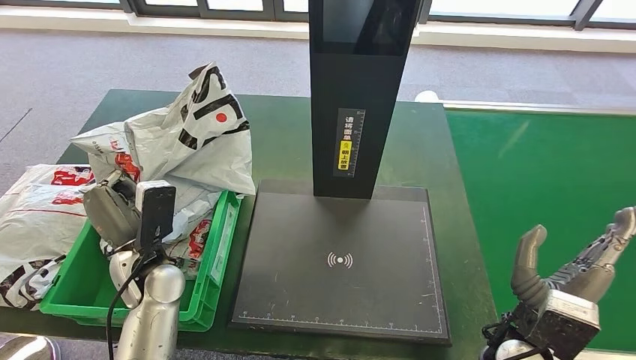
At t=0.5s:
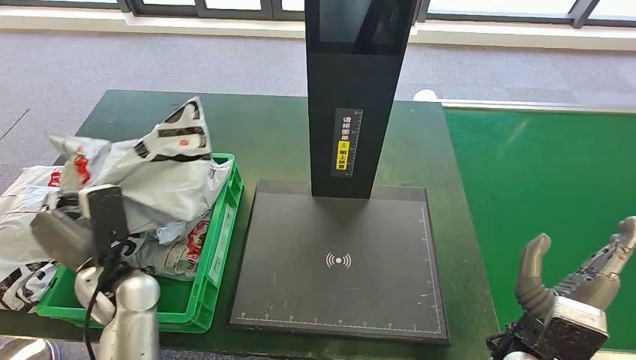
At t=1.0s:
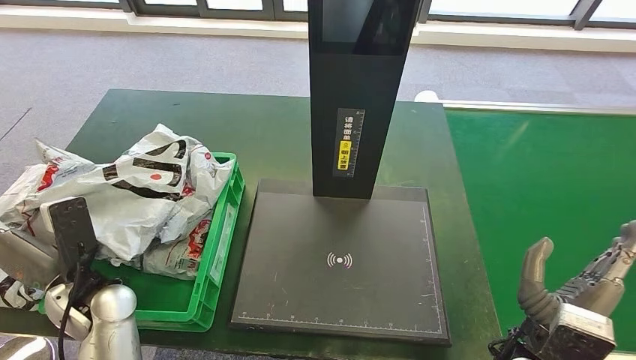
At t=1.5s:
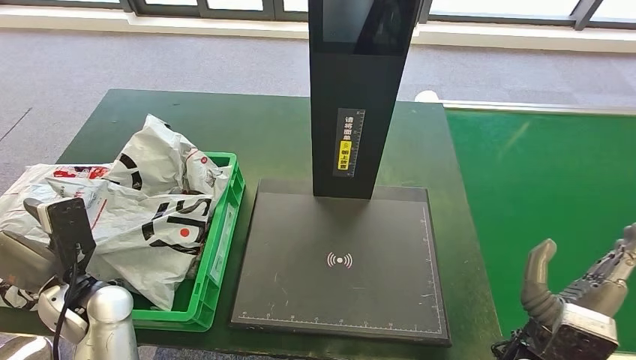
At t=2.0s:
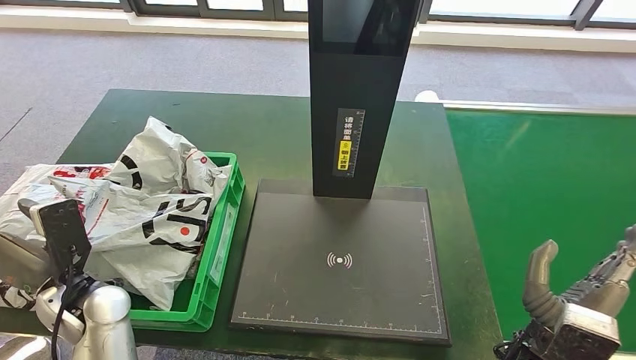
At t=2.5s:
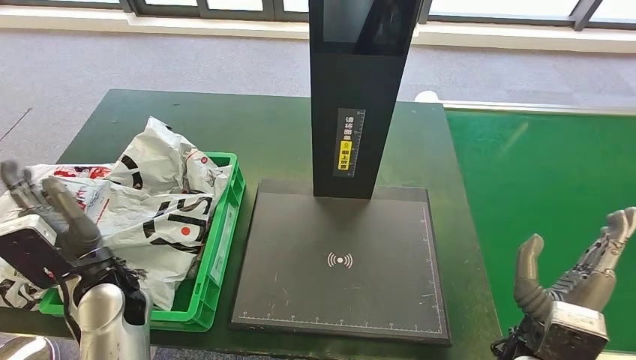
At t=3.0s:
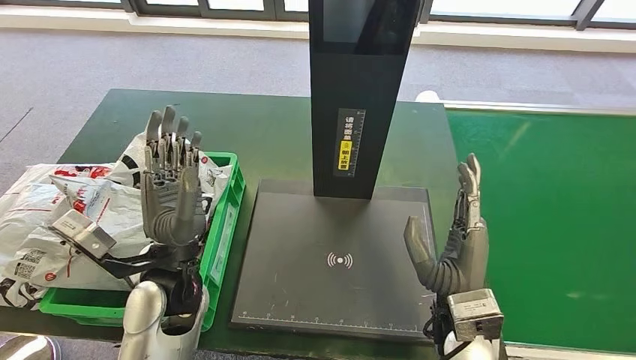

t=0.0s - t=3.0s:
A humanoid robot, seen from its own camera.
Step, t=0.0s - t=3.0s: Place the parcel into the delivery box.
t=1.5s - t=3.0s: The left hand is displaced to the right and upward by about 15 cm. The right hand heads to the left, covering some 10 cm.
